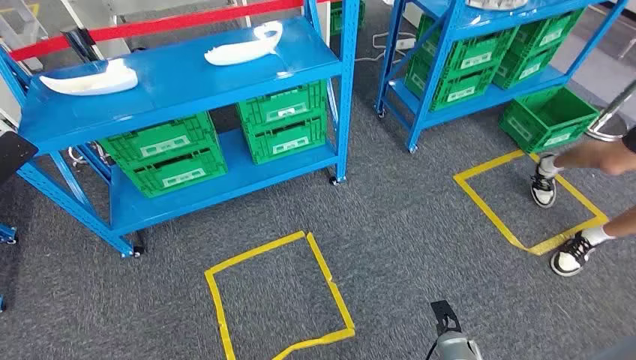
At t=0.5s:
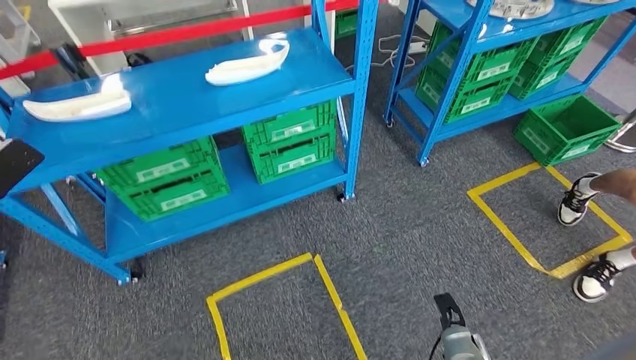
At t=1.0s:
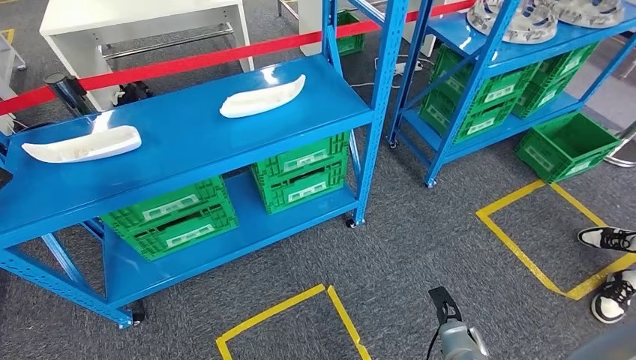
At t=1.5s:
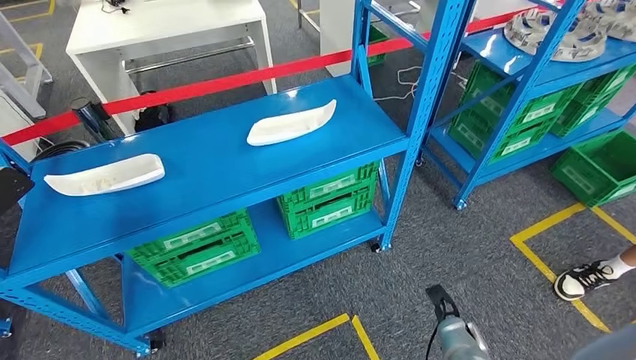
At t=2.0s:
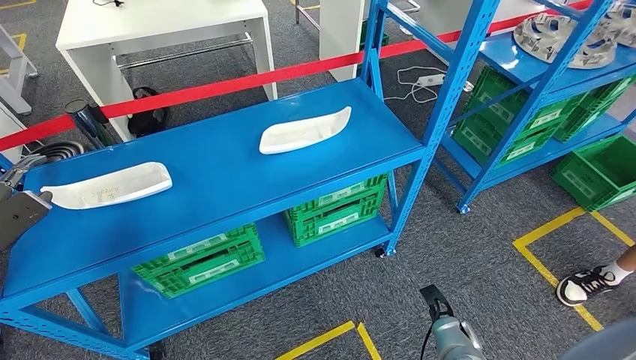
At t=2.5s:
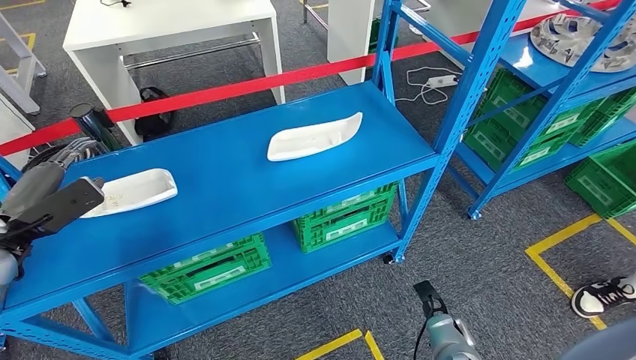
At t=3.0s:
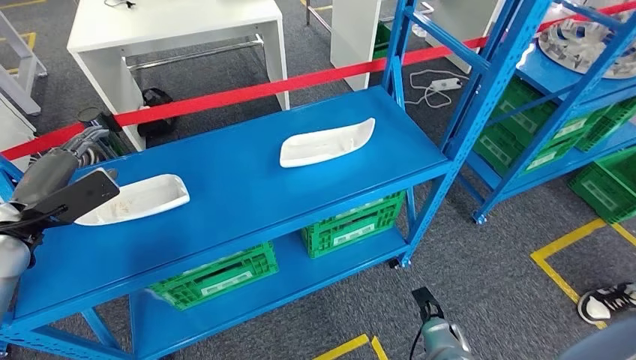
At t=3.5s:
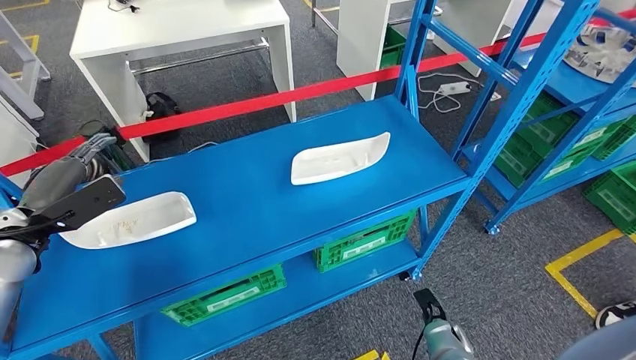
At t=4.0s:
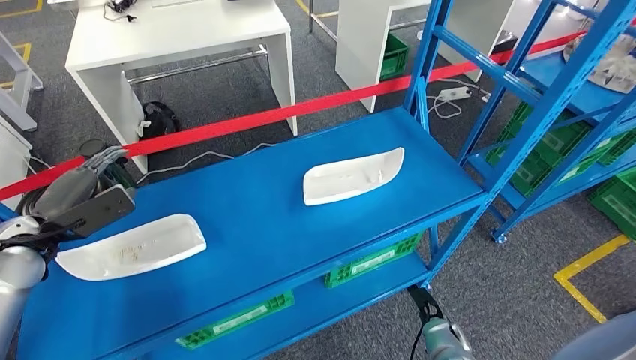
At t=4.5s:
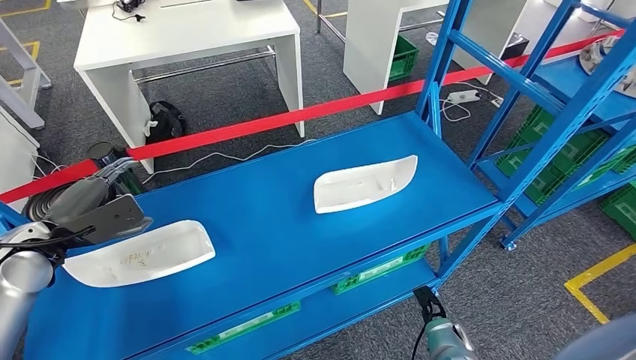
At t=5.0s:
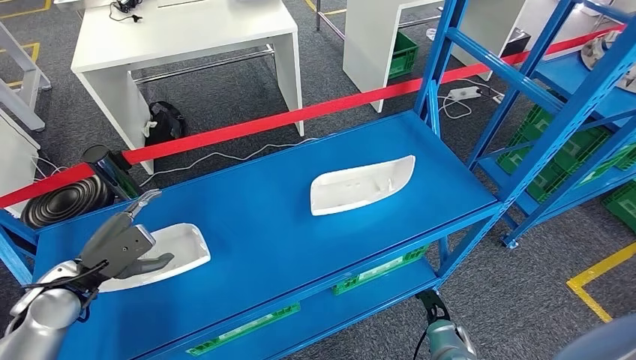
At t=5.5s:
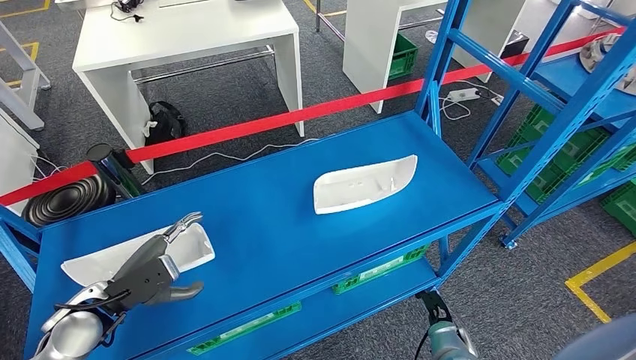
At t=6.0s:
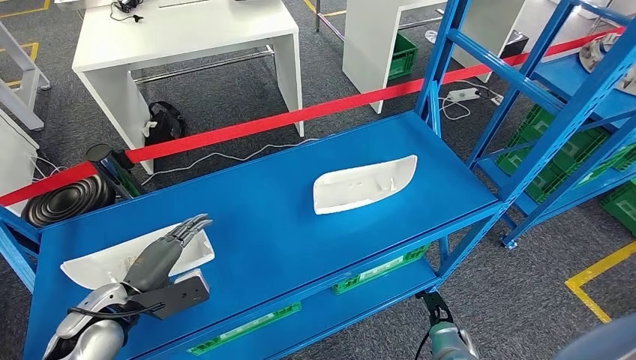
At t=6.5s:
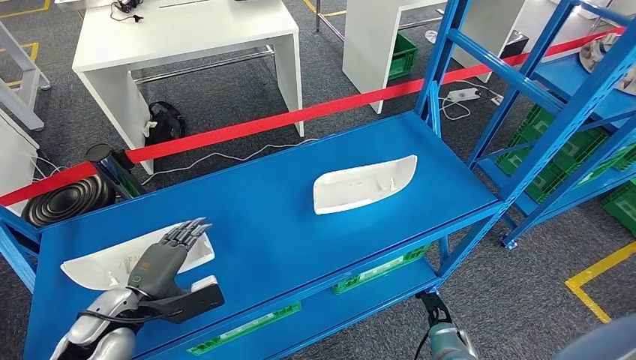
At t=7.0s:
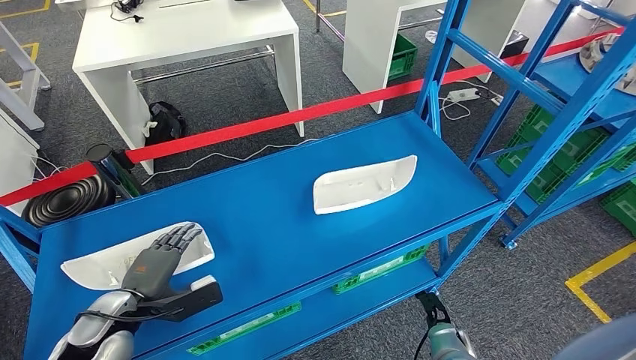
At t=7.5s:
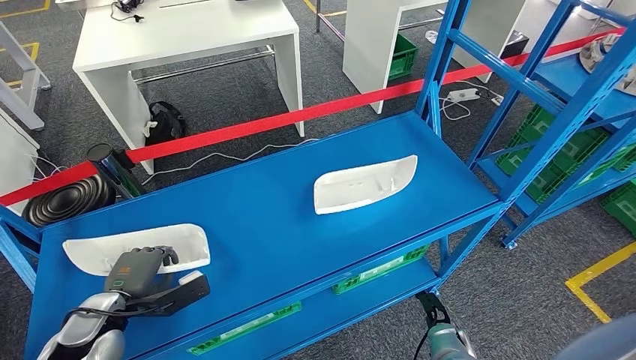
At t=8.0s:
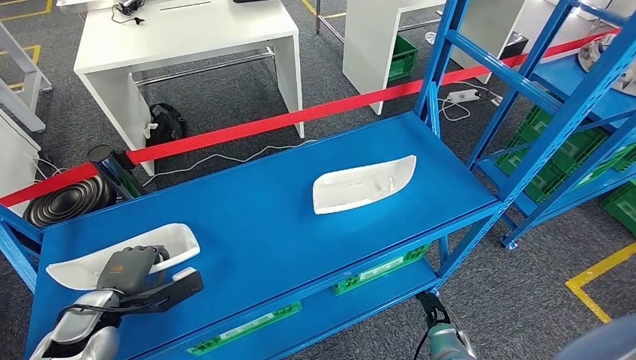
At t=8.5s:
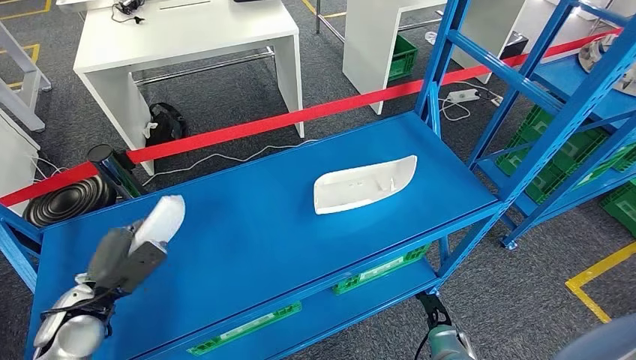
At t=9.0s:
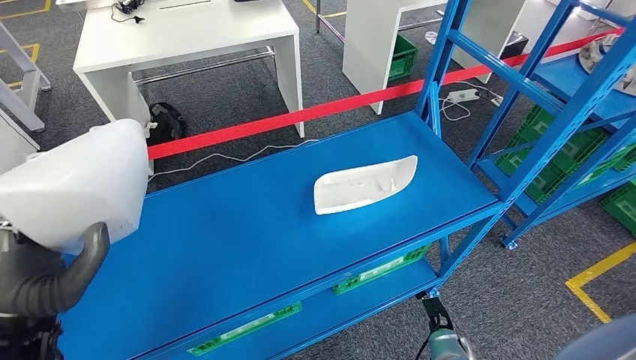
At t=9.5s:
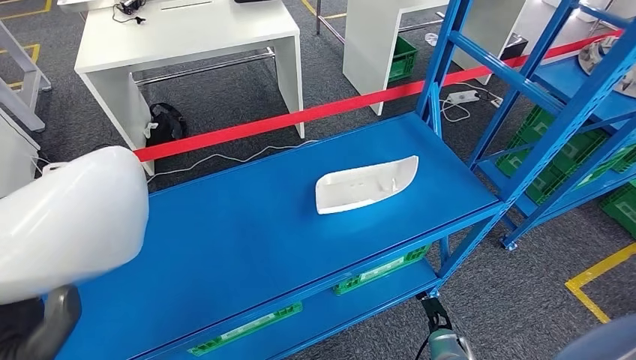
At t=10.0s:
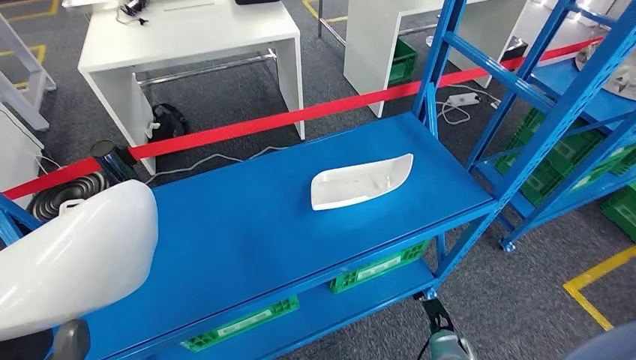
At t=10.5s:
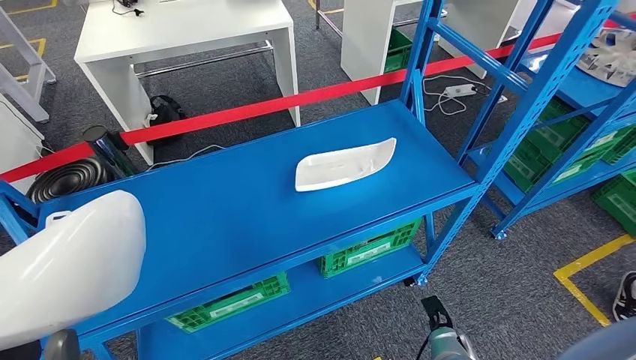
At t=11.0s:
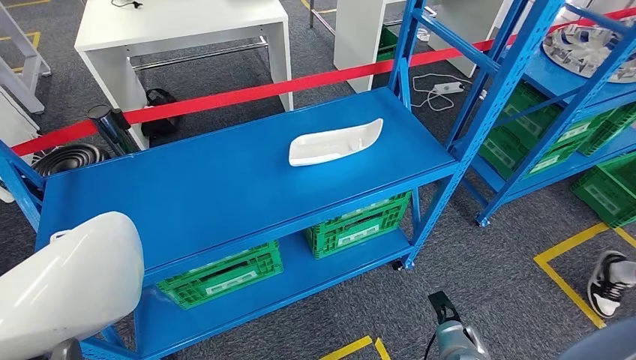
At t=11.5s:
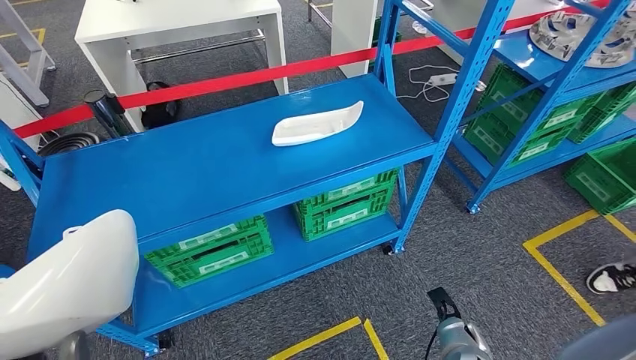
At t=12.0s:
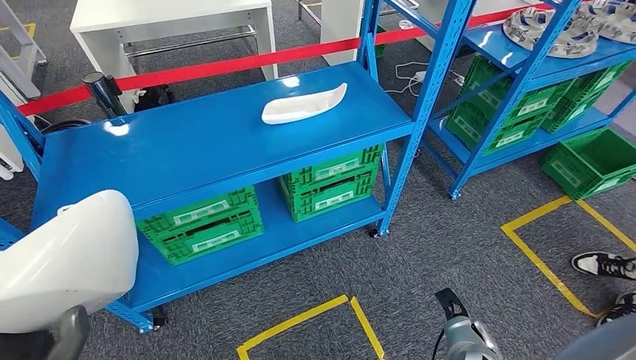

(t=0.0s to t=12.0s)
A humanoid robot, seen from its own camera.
Step, t=0.0s - t=9.5s: Pick up the small component from the shelf.

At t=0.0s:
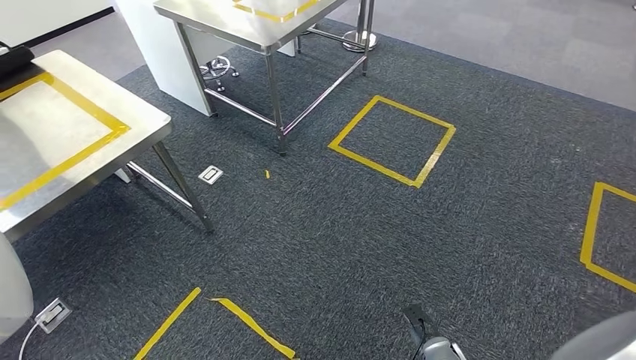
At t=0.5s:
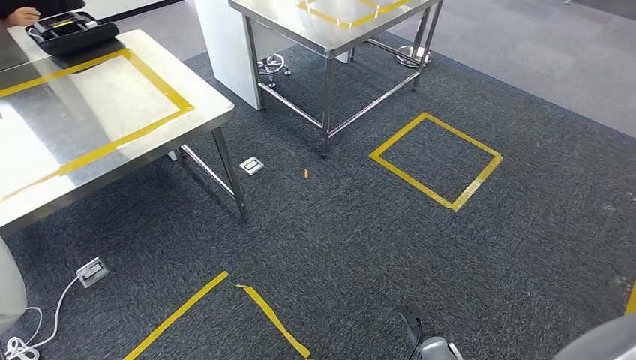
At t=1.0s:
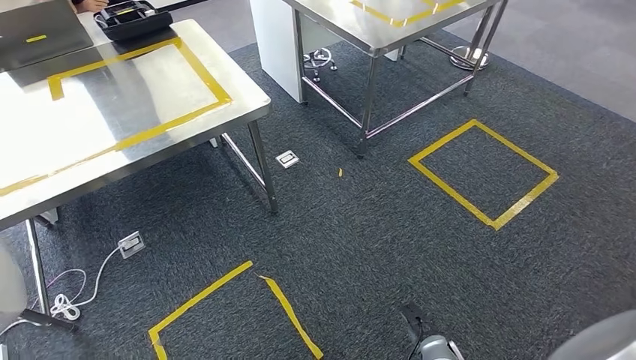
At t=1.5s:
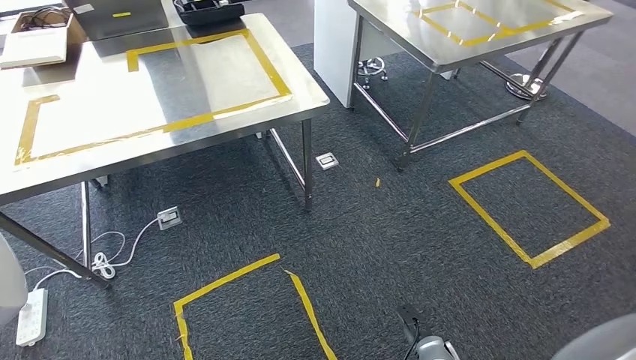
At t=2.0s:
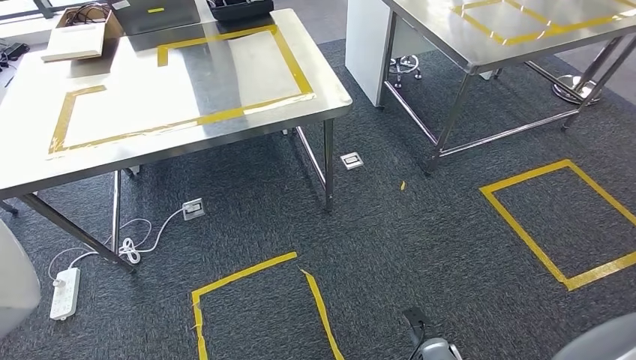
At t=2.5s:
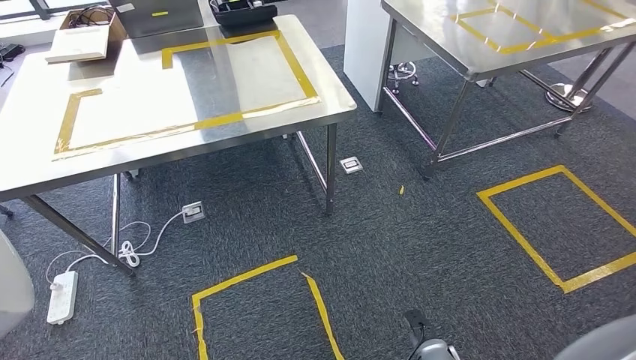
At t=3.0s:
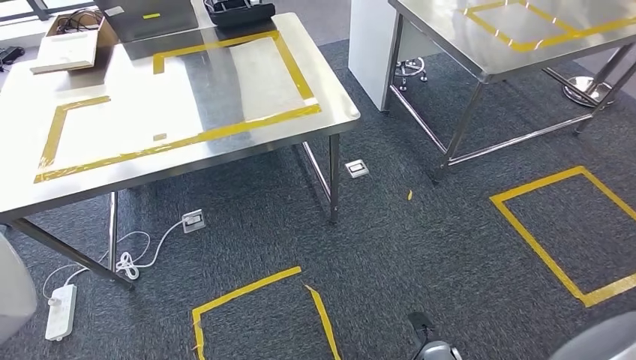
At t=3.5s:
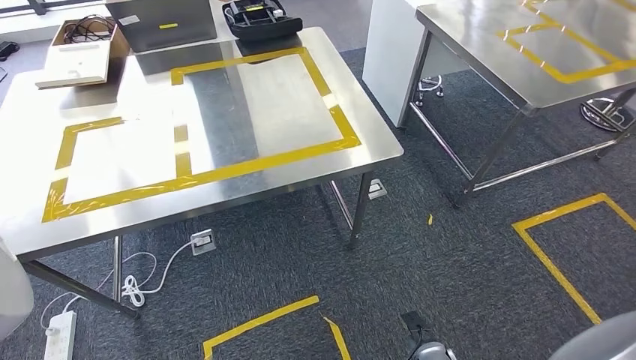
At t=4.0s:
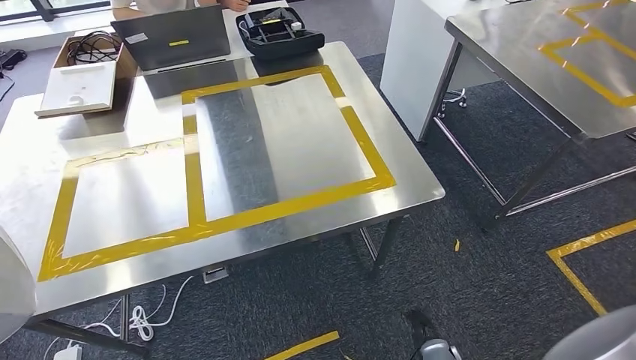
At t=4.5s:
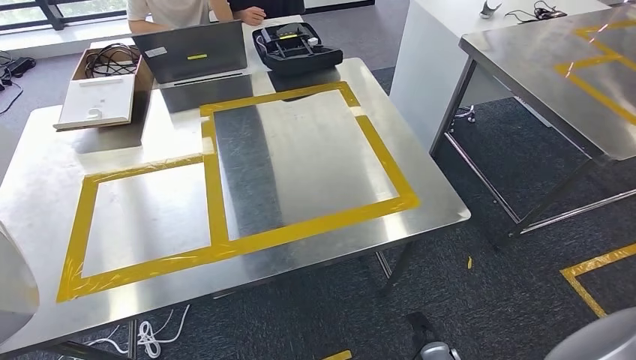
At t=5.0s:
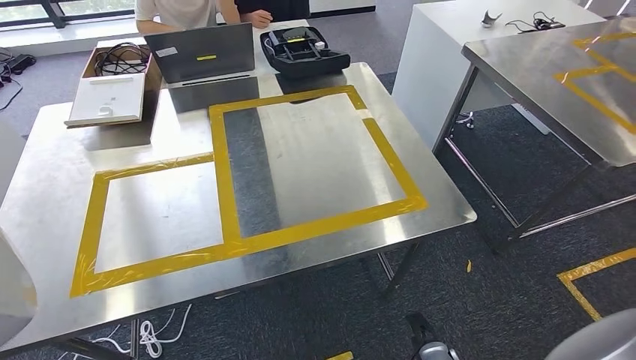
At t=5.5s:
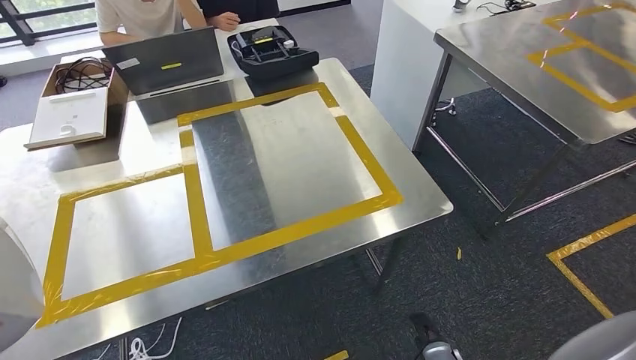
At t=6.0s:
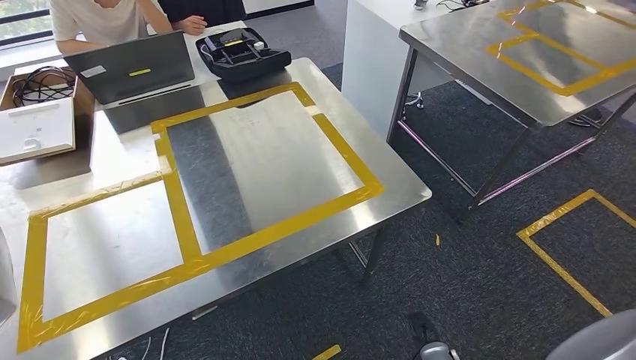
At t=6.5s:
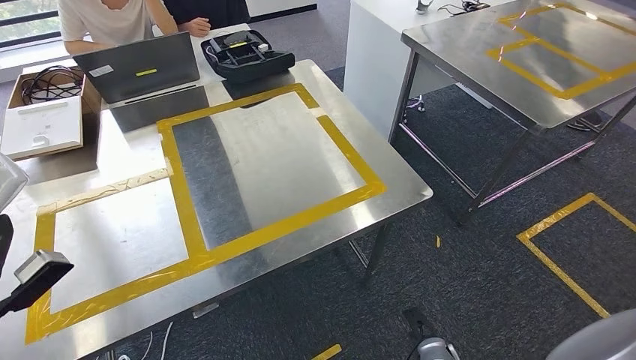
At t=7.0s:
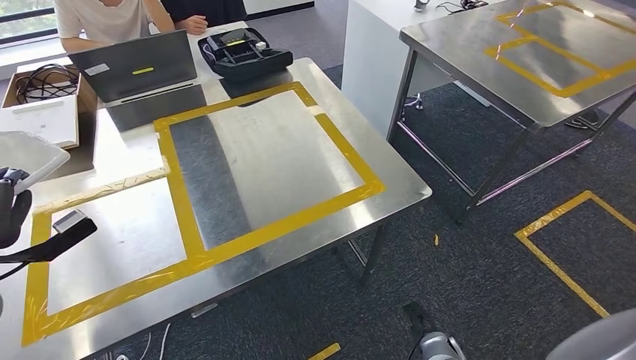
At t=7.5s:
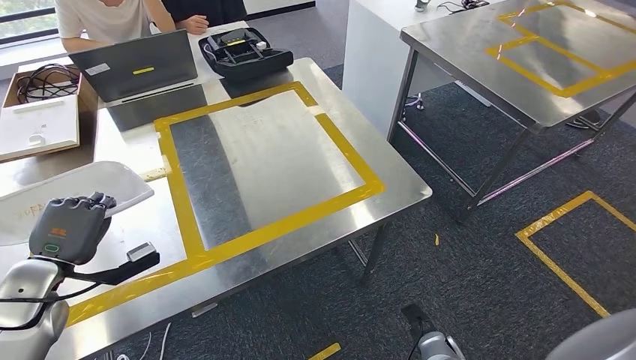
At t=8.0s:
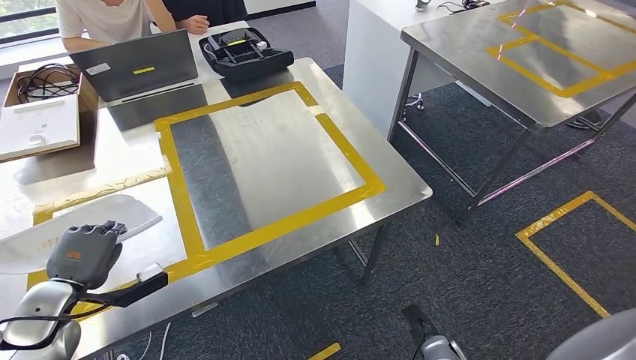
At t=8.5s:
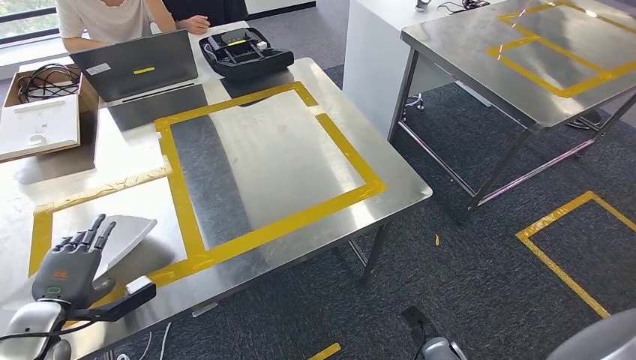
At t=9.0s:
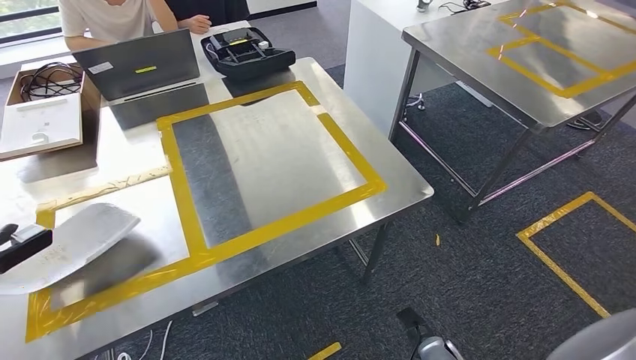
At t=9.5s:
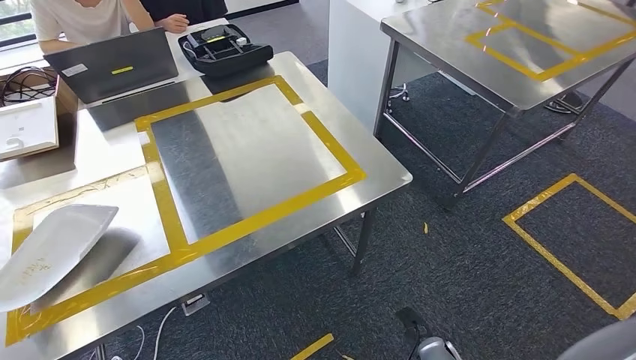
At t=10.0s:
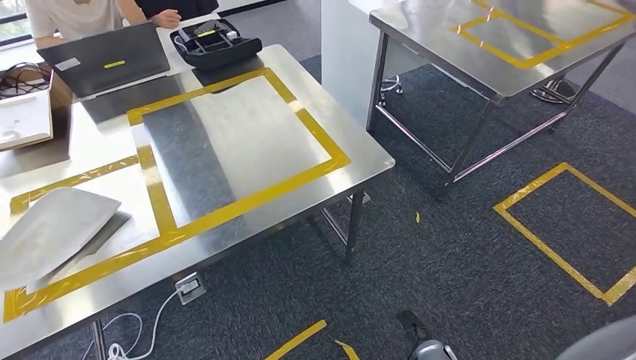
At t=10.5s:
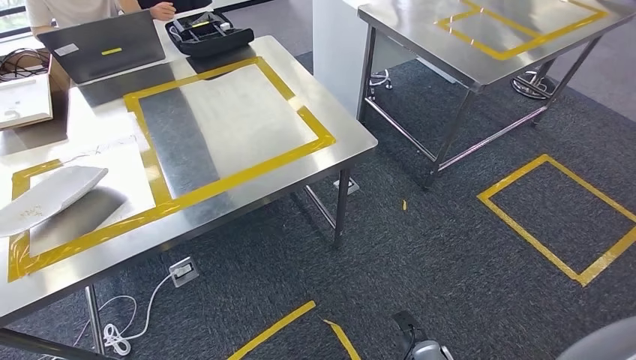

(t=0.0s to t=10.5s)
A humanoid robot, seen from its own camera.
Step, t=0.0s - t=4.5s: Move the small component to the workbench.
Step, t=5.0s - t=9.5s: Insert the small component into the corresponding slot on the workbench.
t=6.5s - t=8.5s: The left hand moves downward, approximately 10 cm.
